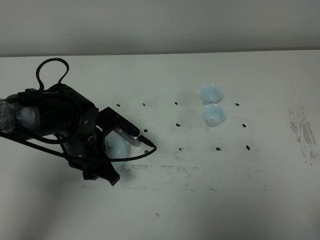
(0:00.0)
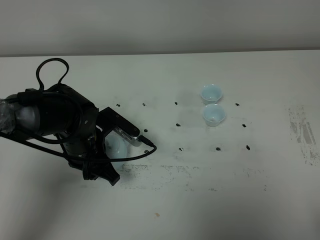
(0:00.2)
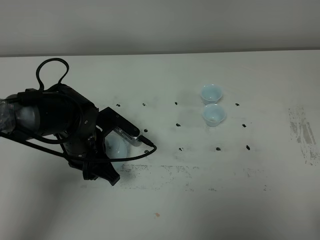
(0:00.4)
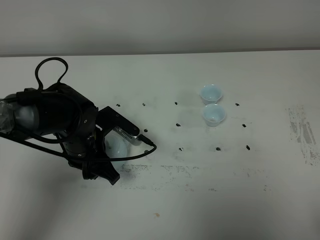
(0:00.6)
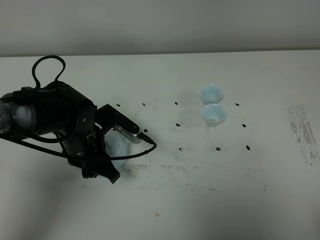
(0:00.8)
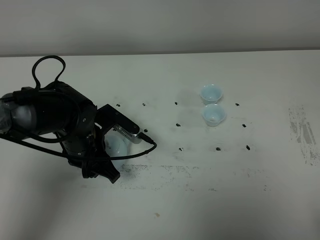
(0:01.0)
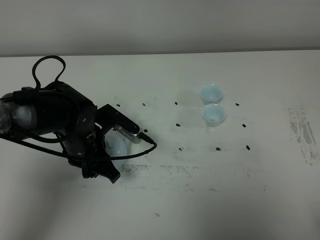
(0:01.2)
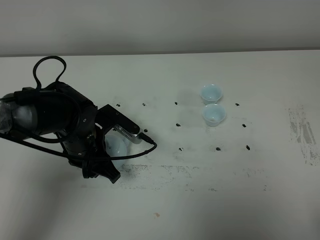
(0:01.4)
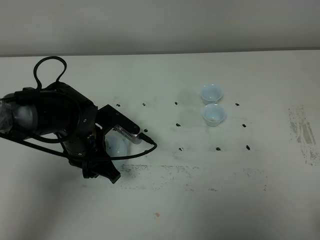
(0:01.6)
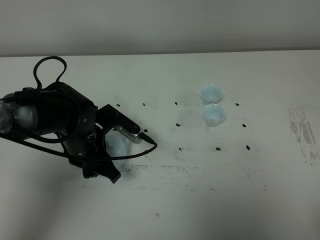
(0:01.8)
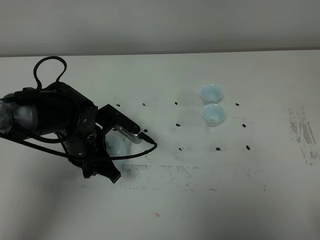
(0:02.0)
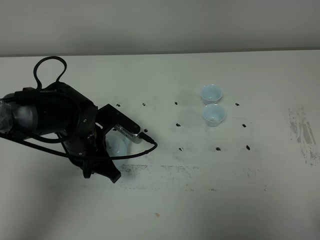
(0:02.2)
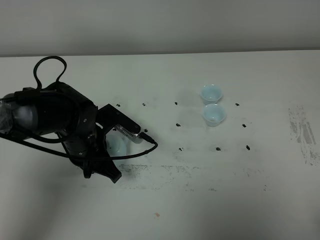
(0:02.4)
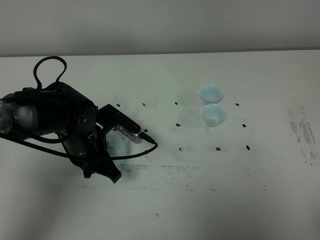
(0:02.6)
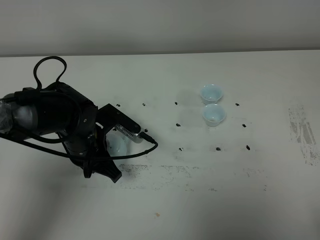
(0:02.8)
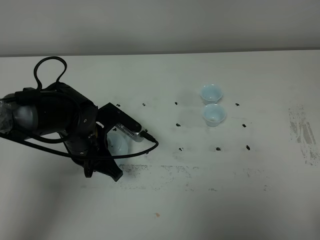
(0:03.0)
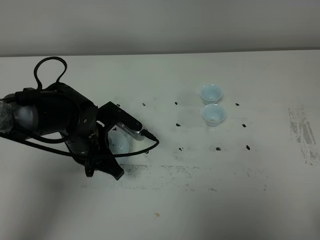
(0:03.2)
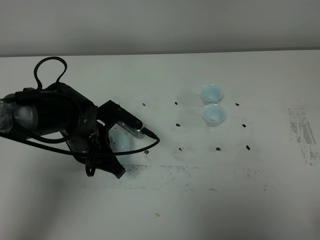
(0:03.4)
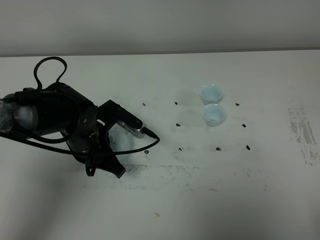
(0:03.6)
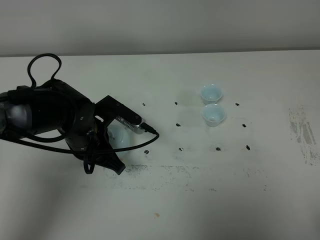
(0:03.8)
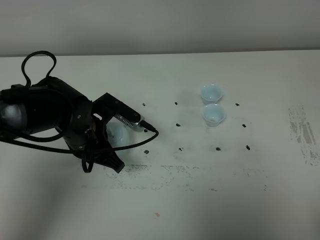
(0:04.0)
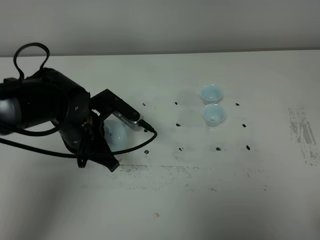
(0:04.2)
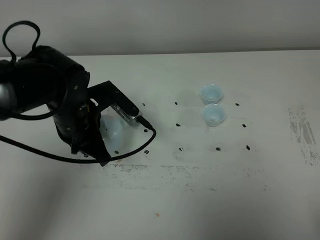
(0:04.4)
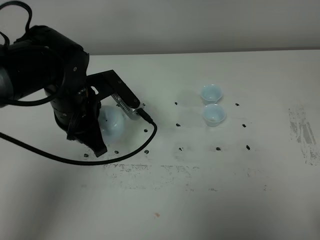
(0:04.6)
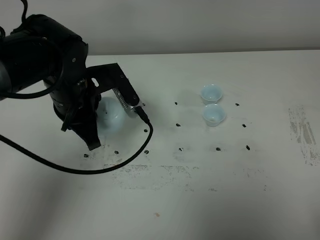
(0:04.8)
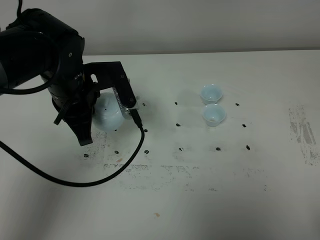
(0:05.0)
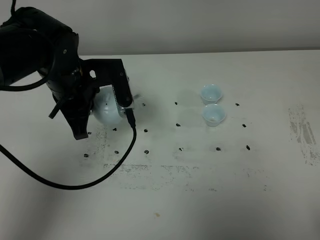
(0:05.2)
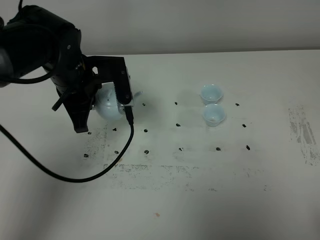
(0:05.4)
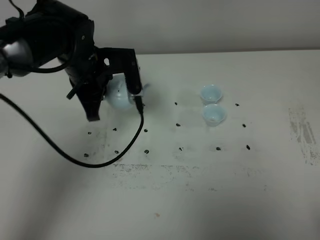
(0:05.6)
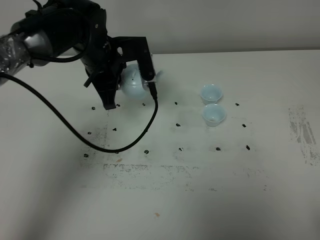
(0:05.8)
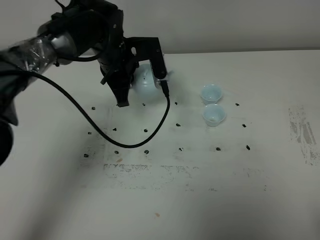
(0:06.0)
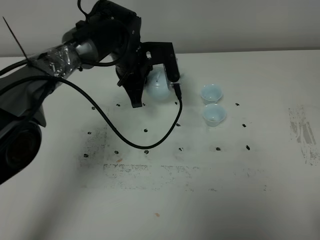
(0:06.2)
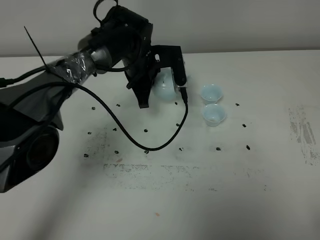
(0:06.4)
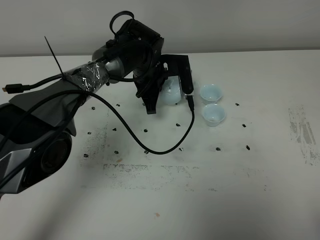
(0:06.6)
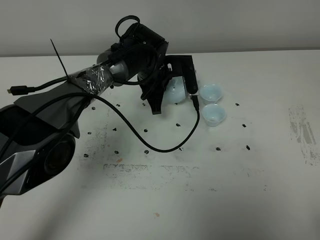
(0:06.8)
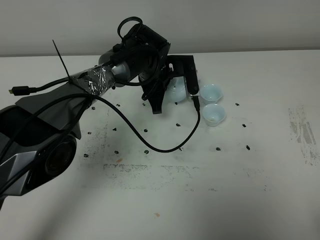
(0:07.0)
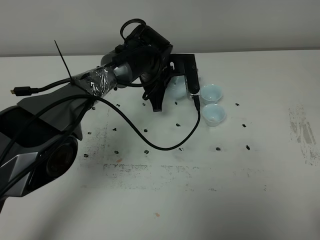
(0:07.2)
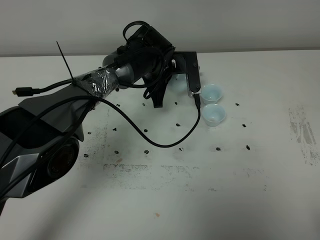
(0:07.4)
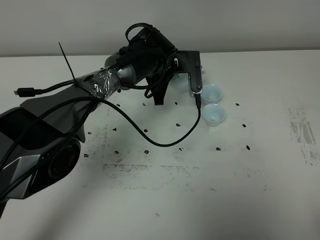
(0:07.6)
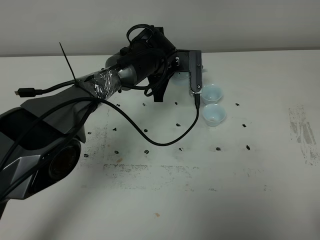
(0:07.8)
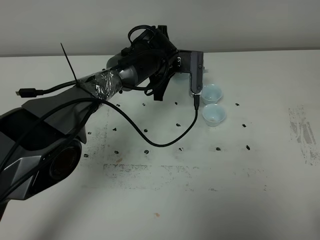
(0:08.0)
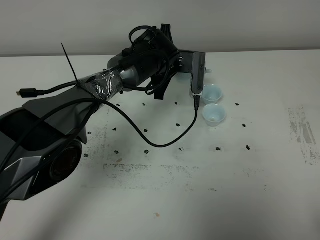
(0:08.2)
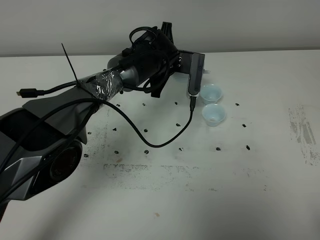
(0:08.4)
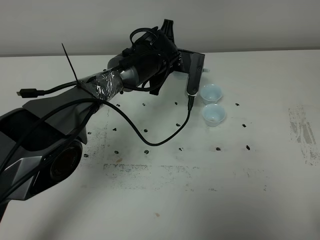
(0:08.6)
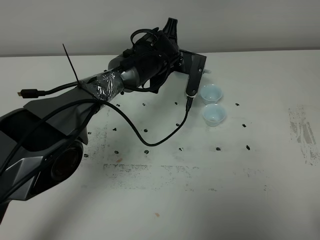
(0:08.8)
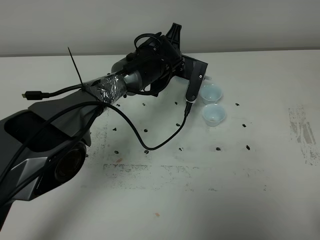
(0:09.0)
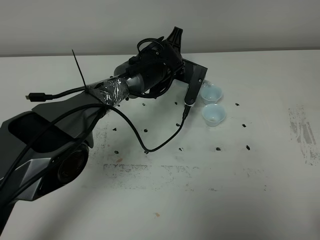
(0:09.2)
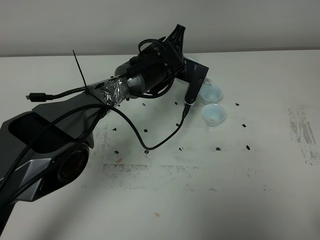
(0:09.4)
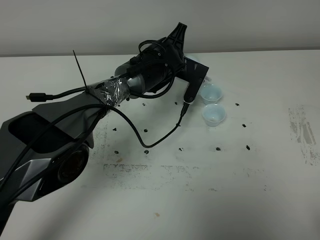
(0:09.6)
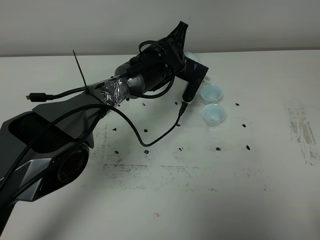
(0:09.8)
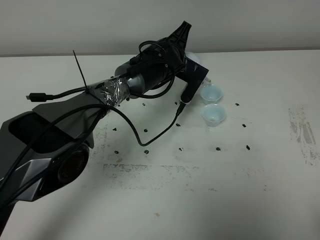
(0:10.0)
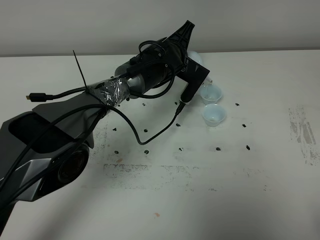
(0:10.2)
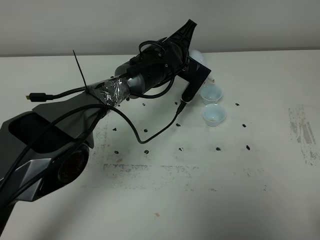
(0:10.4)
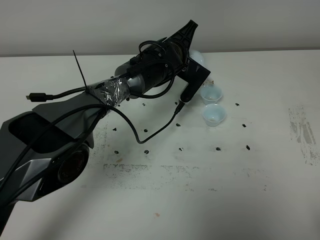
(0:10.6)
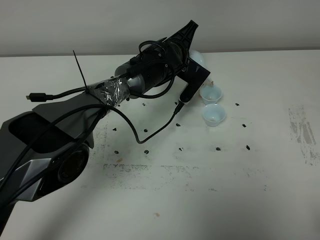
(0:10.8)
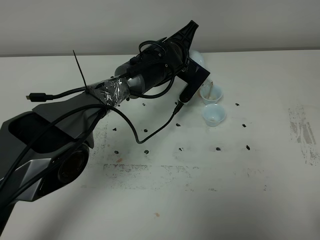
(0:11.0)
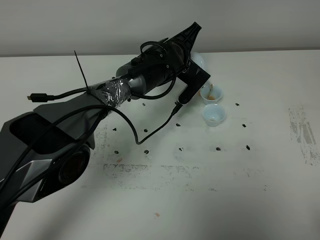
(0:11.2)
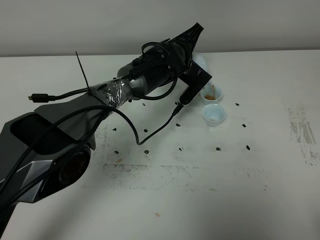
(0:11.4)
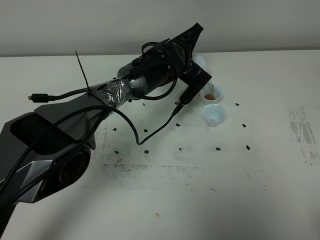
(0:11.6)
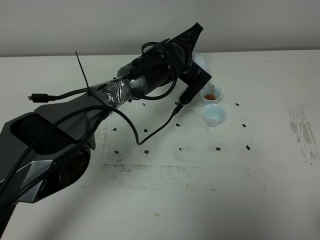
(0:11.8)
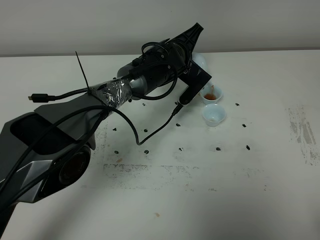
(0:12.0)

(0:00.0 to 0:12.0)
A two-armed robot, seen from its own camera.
Task of the whole recording: grasp the blue porcelain teapot and pour the tea into the two blue porcelain teacups one by one, put the blue porcelain teapot back in its original place.
Step, 0:00.0 - 0:03.6: Pick up the teapot with the left gripper.
0:00.0 - 0:01.6: Both grippers stay put.
0:01.6 - 0:03.0: The left gripper closes.
0:03.0 - 0:04.4: The left gripper heads upward, covering about 5 cm.
0:04.4 - 0:06.0: The left gripper moves forward, roughly 15 cm.
0:06.0 - 0:07.6: The left gripper moves to the right and downward, about 10 cm.
0:09.0 - 0:10.4: There are only small adjustments of the grippers.
0:10.4 - 0:12.0: There are only small adjustments of the grippers.

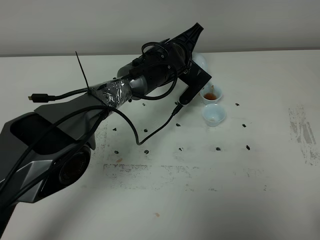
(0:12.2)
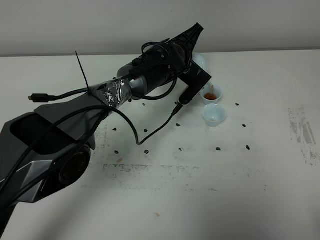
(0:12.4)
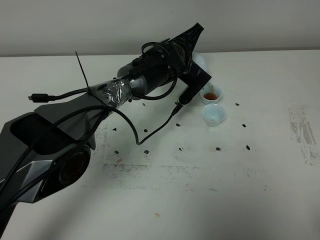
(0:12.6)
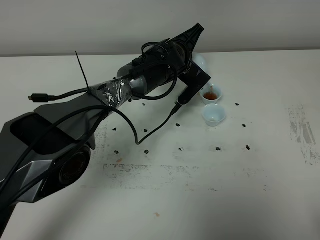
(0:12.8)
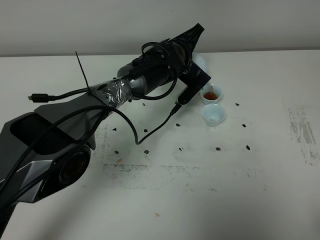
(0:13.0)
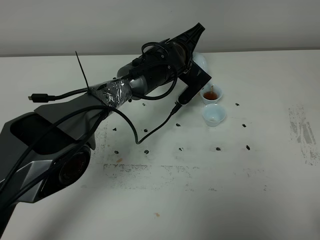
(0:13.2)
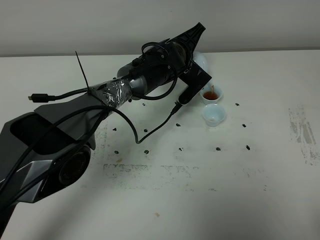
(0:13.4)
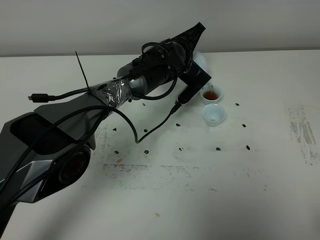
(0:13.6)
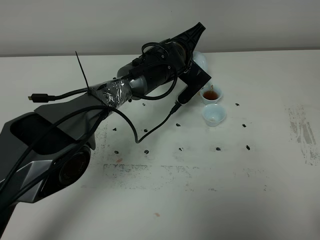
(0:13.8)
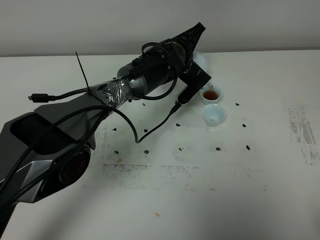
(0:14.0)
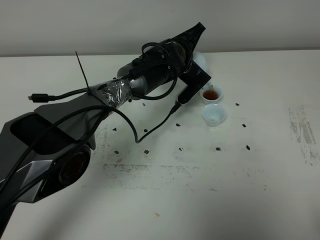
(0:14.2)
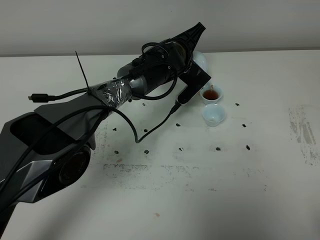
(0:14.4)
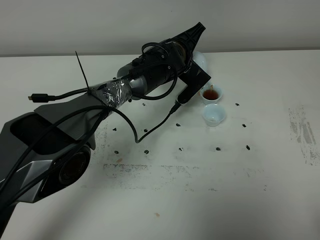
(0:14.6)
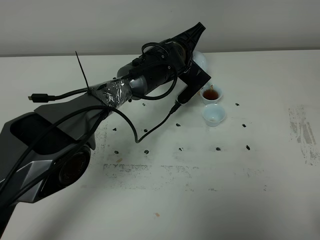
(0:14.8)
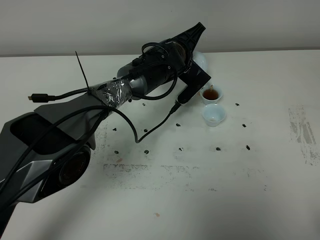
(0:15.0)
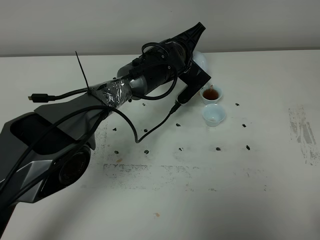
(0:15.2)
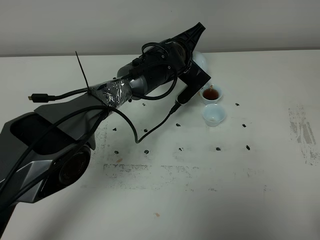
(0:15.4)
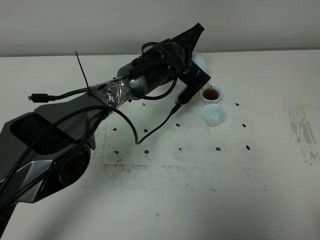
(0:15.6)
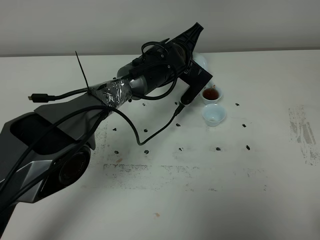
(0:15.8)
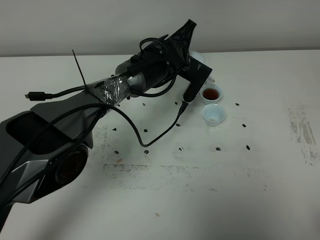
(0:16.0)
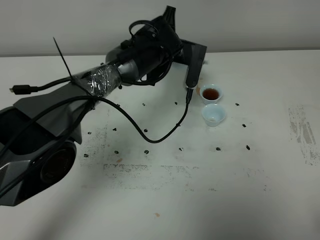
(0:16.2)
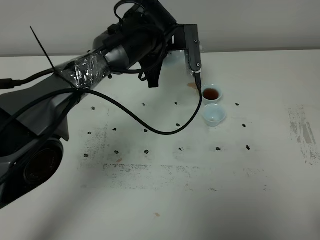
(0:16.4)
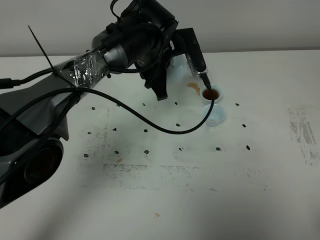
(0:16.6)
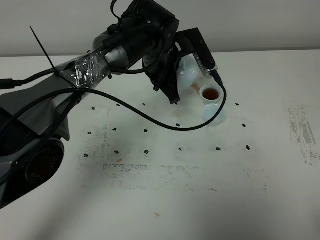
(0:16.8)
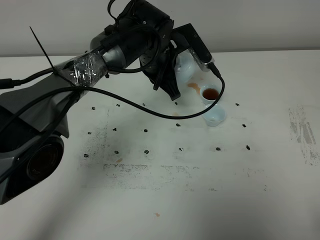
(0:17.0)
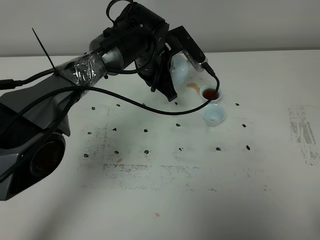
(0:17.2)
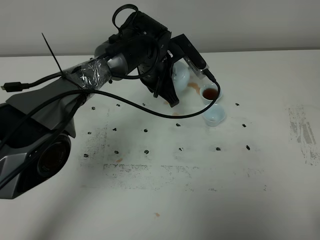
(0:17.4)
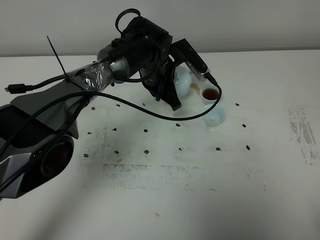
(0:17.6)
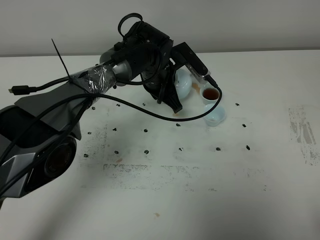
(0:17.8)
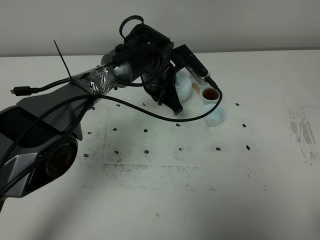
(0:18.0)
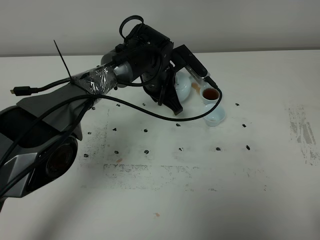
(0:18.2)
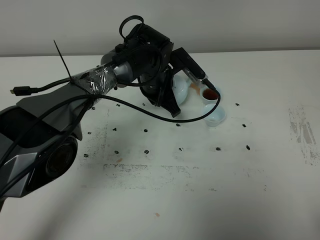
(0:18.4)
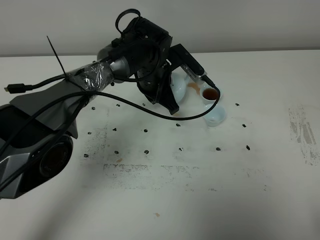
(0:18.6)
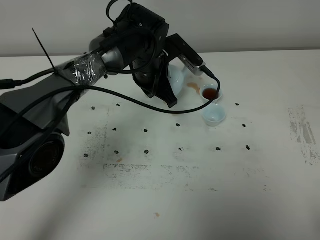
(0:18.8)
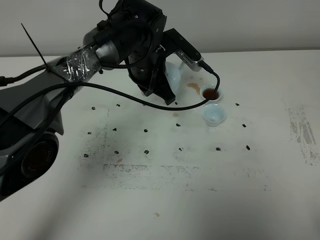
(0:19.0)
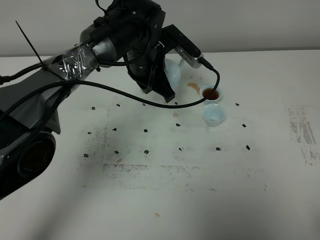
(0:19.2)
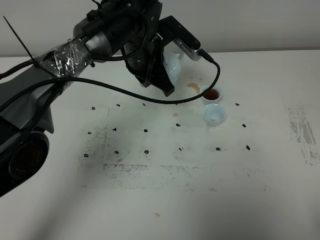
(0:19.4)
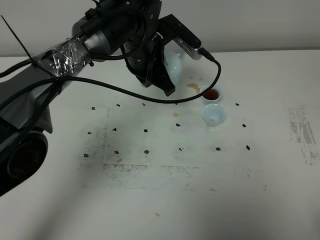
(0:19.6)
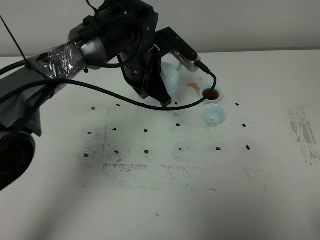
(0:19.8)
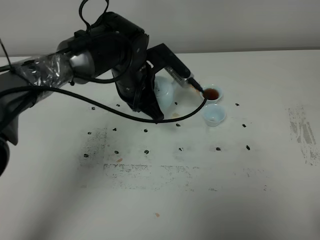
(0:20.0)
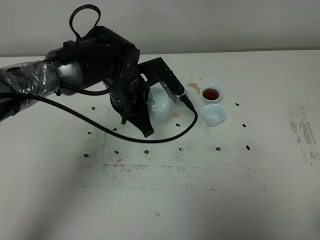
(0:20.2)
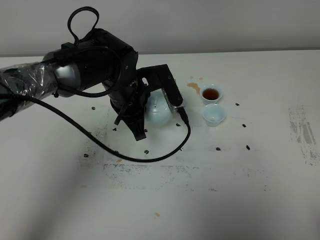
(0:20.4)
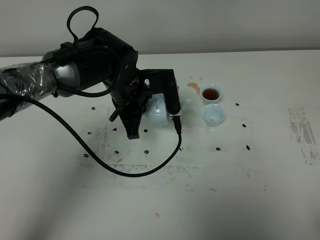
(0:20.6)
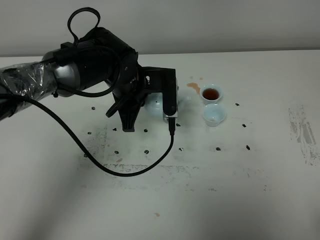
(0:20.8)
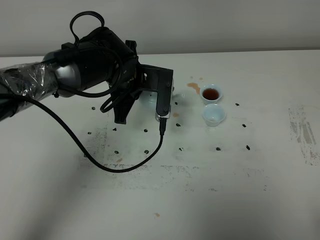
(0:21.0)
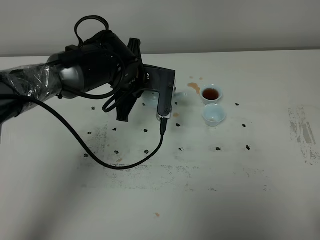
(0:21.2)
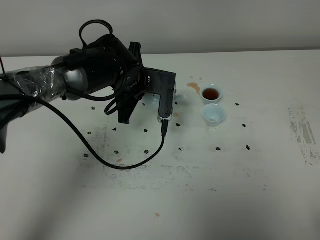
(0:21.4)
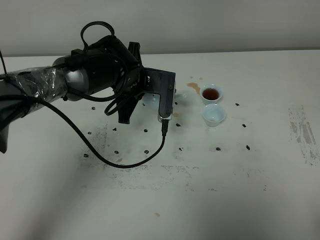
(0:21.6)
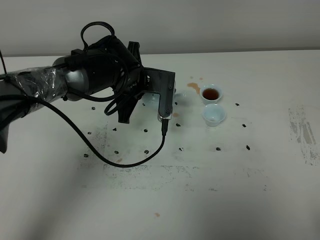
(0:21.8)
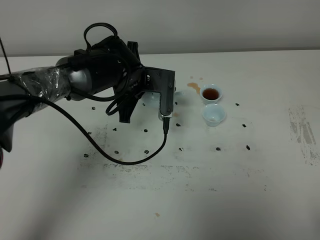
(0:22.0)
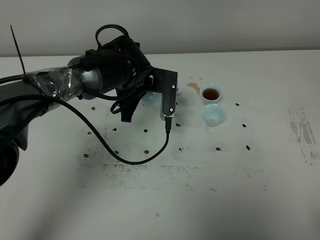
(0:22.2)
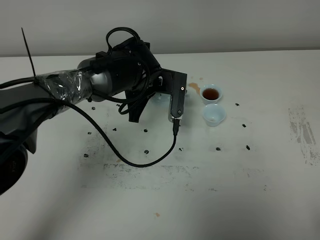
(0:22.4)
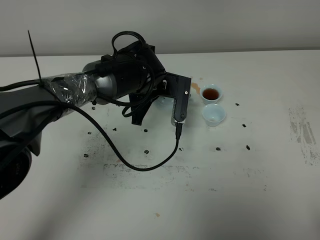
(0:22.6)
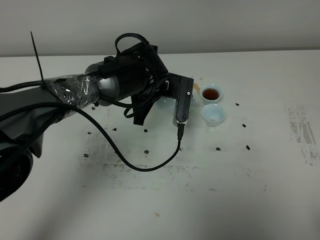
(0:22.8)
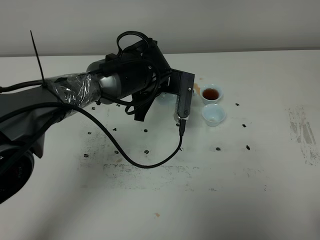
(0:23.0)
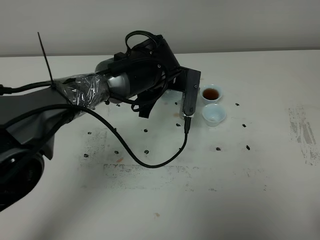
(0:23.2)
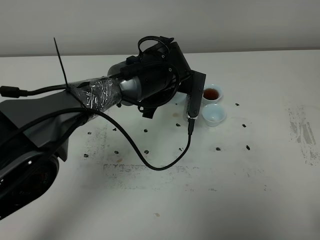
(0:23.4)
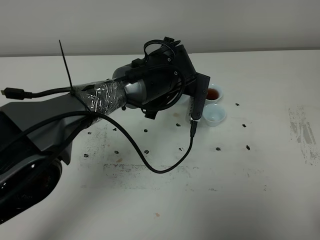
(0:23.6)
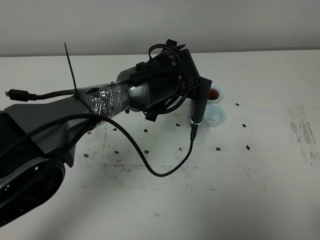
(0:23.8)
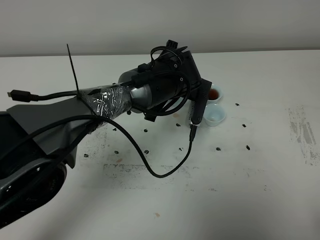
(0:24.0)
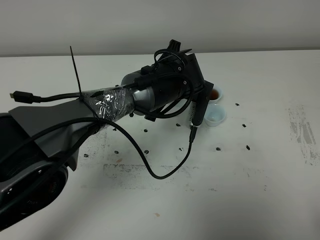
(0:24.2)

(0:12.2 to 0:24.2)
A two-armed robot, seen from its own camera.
Task of the whole recording: grasp the blue porcelain teapot and pour the tea into the two blue porcelain teacups one by one, put the blue porcelain teapot back in its original place.
0:12.2 - 0:15.2: Both grippers stay put.
0:15.2 - 0:16.6: The left gripper shifts roughly 5 cm upward.
0:16.6 - 0:18.2: The left gripper is displaced downward by roughly 5 cm.
0:18.2 - 0:19.8: The left gripper is displaced upward by approximately 5 cm.
0:21.2 - 0:22.6: There are only small adjustments of the grippers.
0:22.6 - 0:24.2: The left gripper moves about 5 cm.
